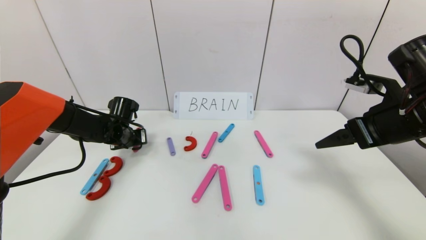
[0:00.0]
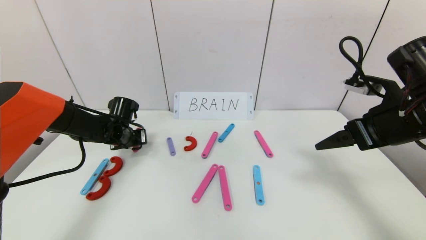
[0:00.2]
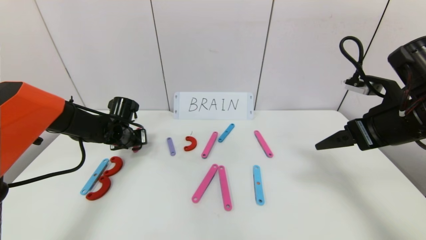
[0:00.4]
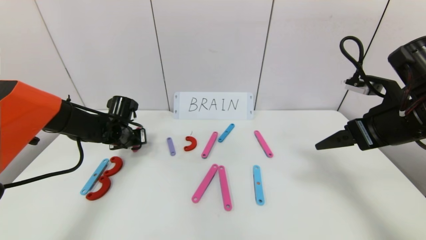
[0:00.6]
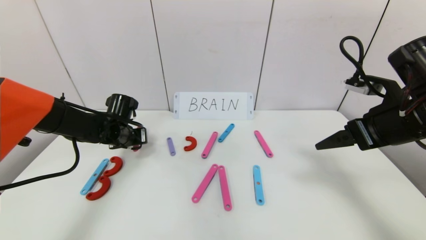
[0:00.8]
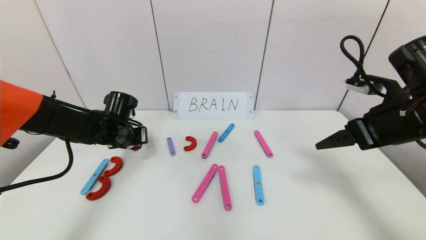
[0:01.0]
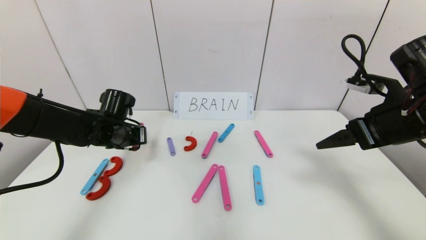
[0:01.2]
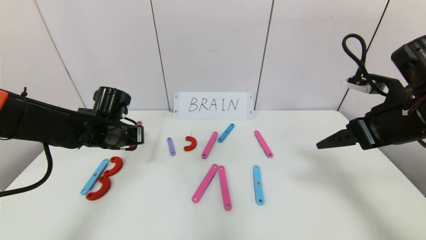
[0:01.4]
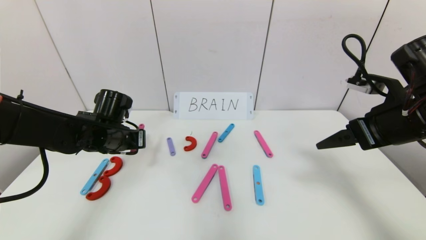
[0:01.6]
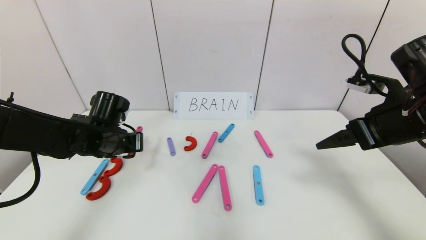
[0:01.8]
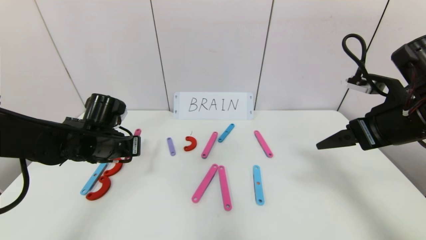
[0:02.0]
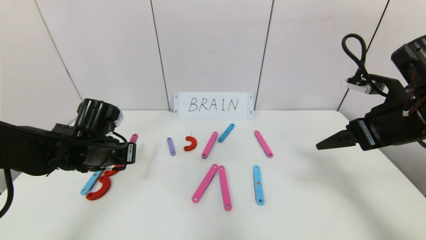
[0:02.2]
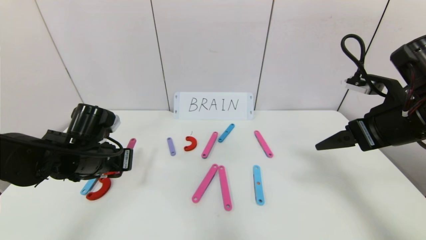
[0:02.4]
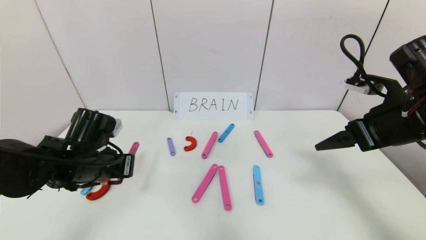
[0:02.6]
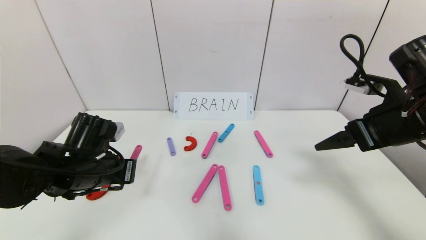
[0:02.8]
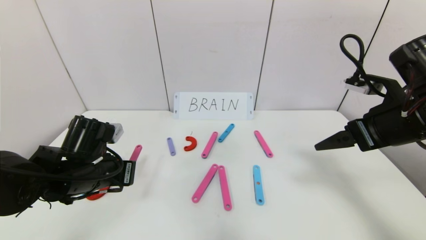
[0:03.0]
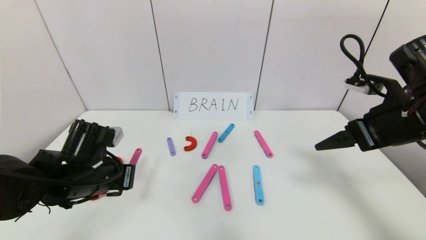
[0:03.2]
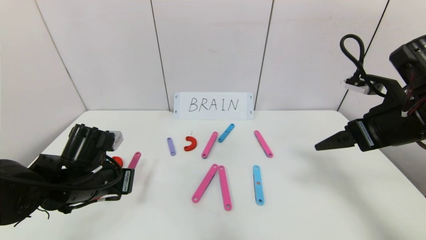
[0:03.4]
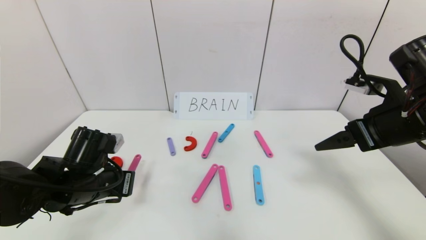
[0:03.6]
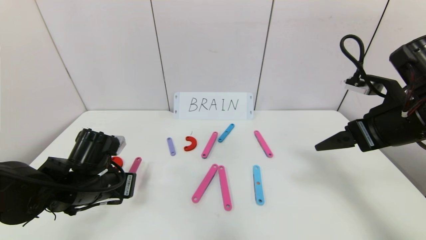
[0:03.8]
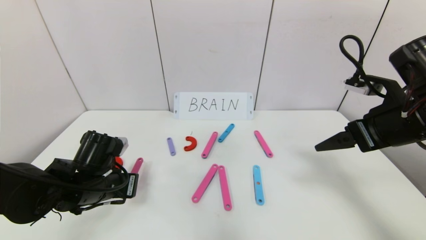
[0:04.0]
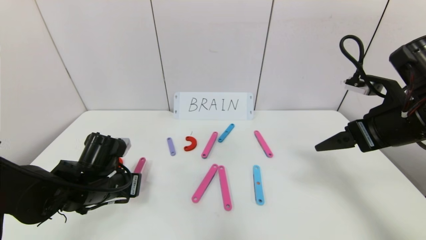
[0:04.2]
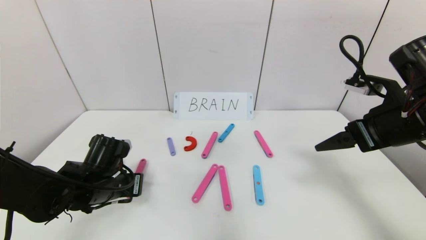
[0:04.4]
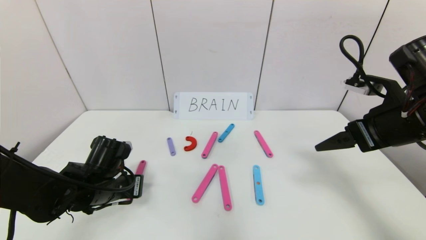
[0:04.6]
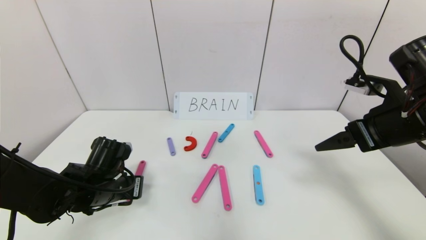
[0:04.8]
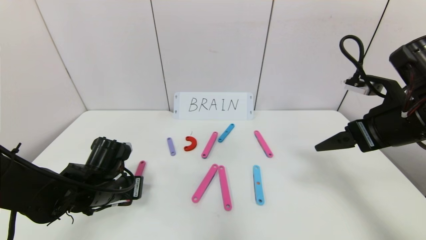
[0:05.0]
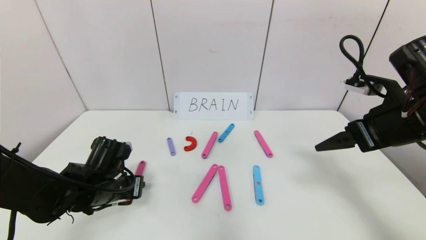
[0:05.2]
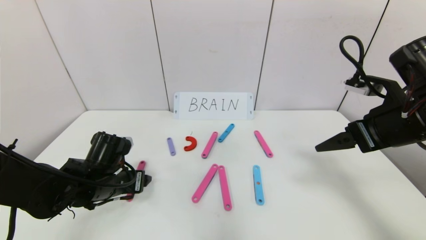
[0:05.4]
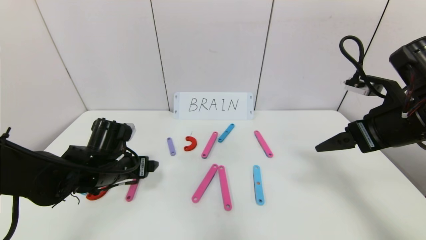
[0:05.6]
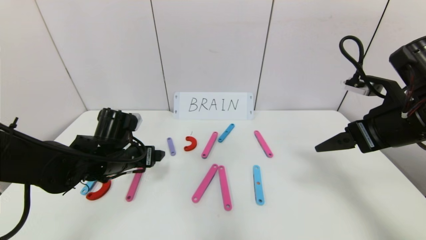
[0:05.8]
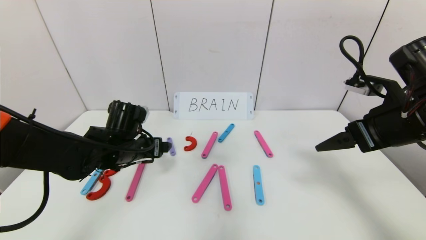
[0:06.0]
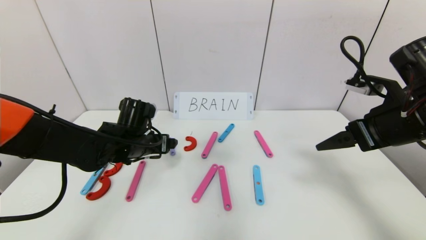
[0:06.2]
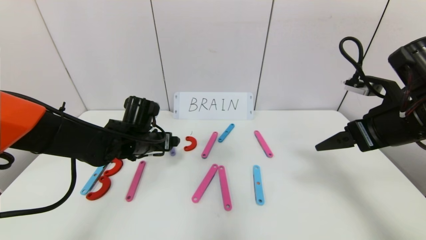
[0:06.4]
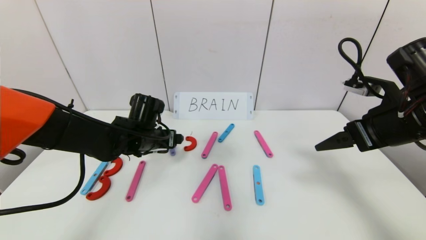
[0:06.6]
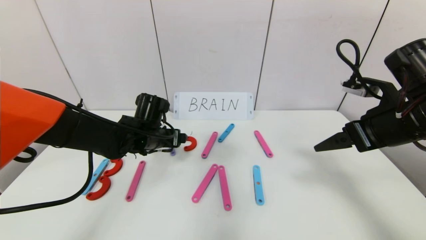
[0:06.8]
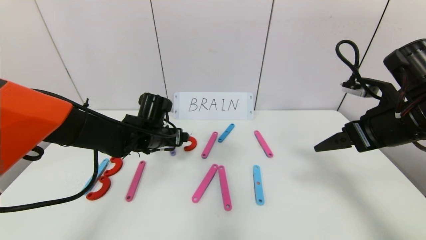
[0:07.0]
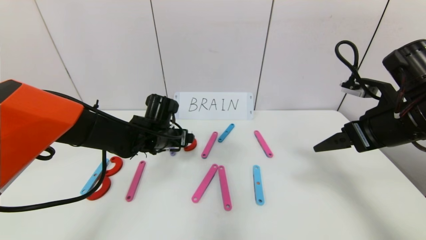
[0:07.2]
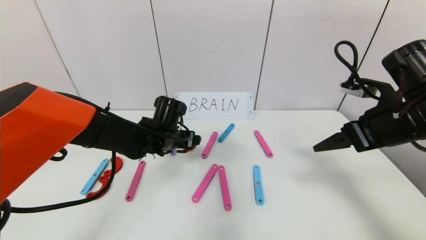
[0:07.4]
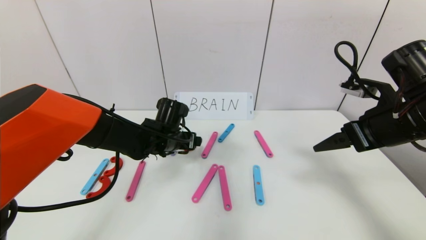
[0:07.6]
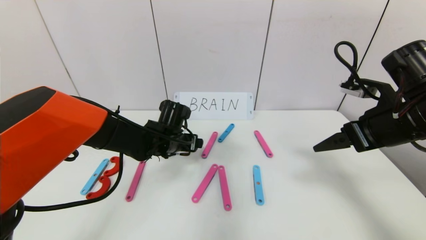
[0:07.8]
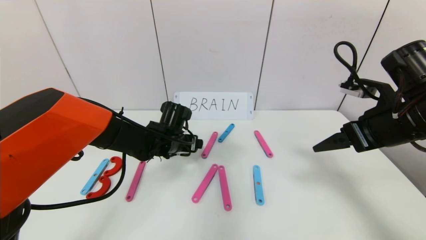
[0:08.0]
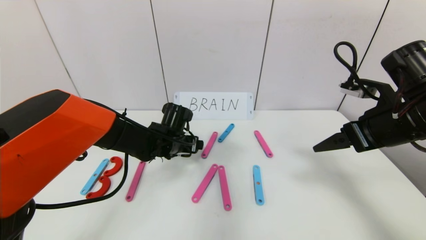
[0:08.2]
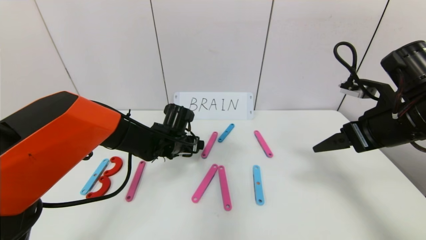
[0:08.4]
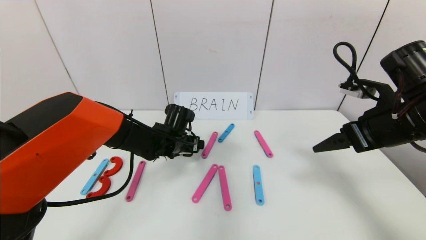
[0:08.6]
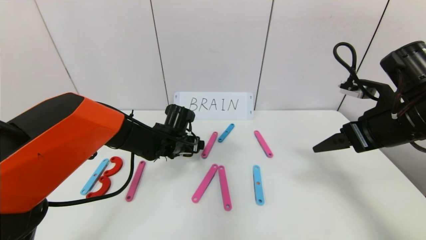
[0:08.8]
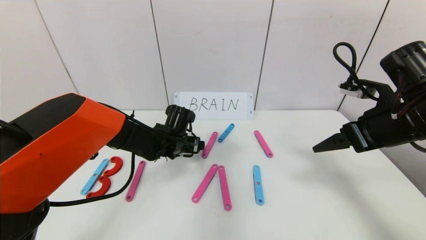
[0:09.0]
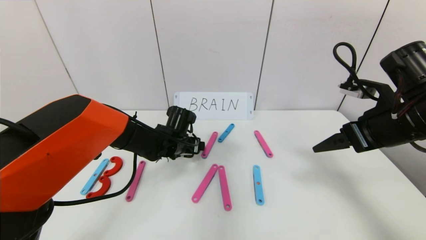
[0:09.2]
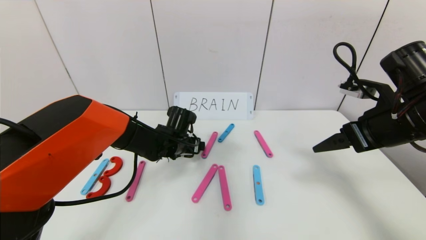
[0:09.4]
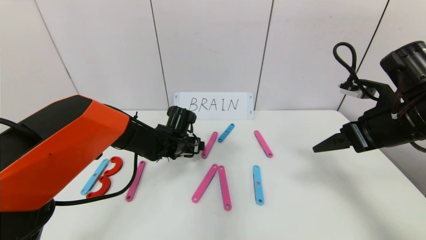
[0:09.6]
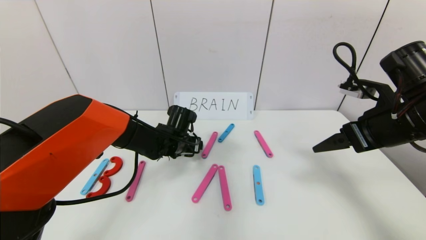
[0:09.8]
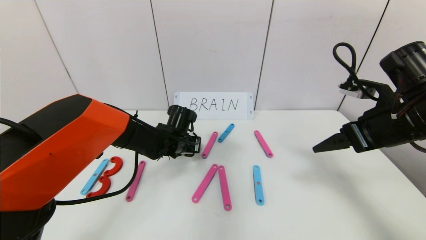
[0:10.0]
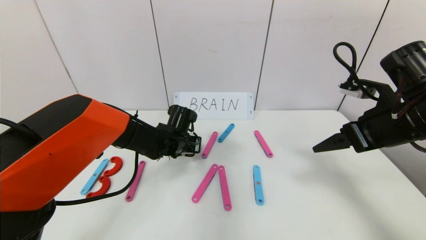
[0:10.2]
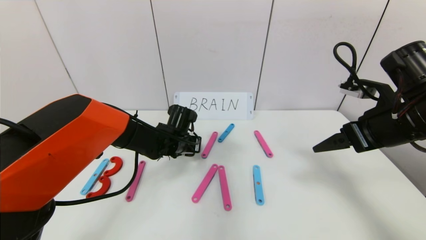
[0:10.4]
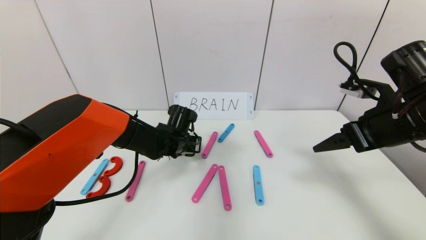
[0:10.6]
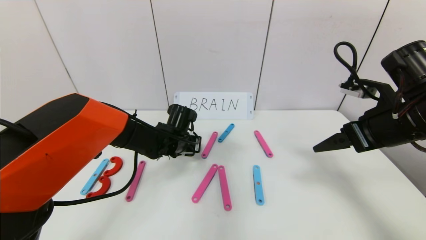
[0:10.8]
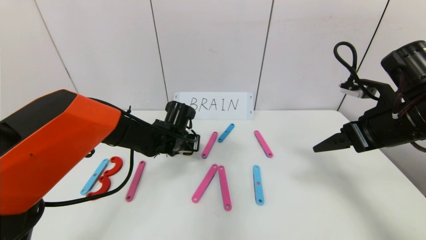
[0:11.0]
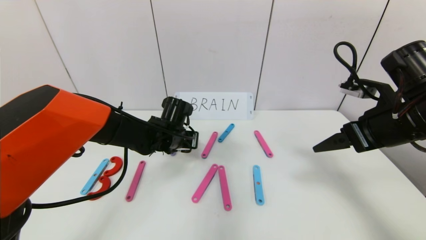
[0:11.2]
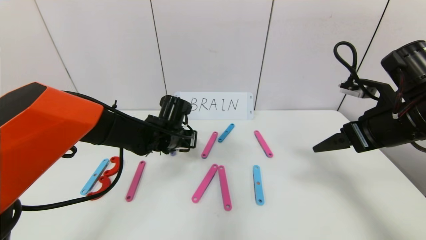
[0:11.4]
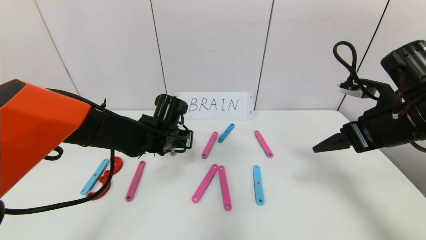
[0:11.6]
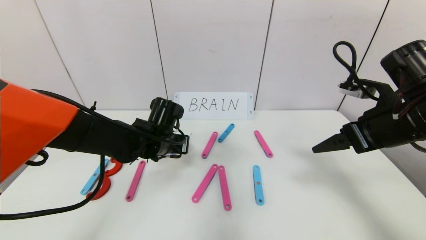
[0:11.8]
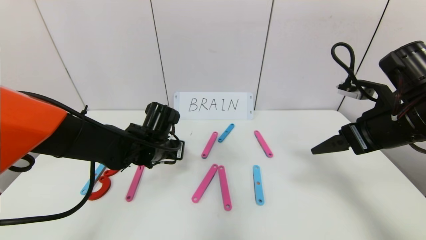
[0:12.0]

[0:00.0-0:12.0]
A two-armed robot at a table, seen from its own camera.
Task of the whole recording: rearrange the word baai as brain.
0.0 to 1.6 s: The left gripper travels backward and upward by some 10 cm.
1.6 to 3.0 s: The left gripper heads backward, covering approximately 10 cm.
3.0 to 4.4 s: The left gripper changes place by approximately 5 cm.
4.4 to 6.0 s: The left gripper heads forward, covering about 5 cm, and opens its fingers.
6.0 to 7.6 s: The left gripper travels to the right and forward by about 10 cm.
7.6 to 9.0 s: The grippers move only a little.
9.0 to 10.4 s: The left gripper closes.
10.4 to 12.0 s: The left gripper is displaced backward by some 5 cm.

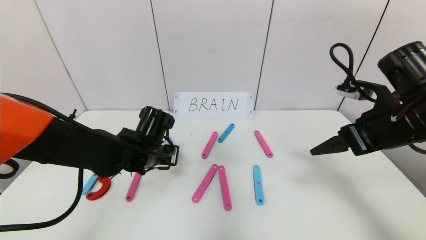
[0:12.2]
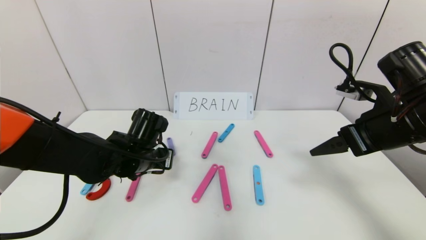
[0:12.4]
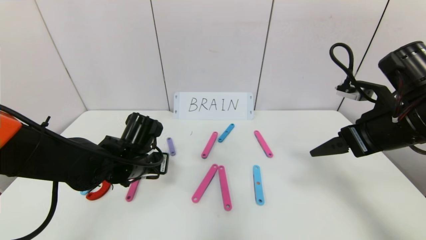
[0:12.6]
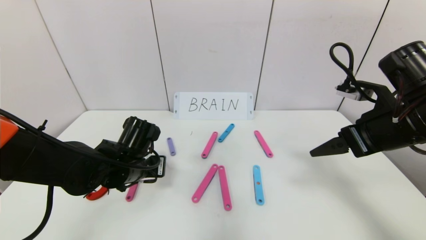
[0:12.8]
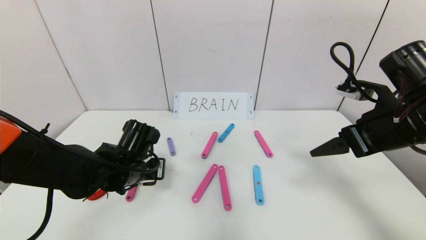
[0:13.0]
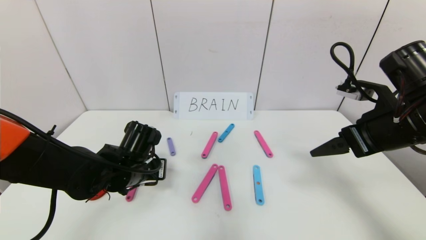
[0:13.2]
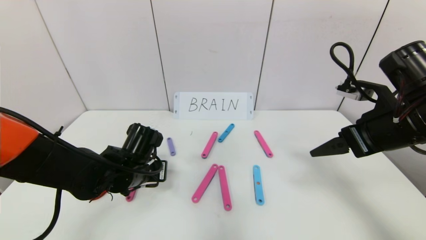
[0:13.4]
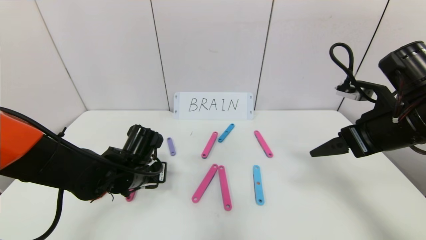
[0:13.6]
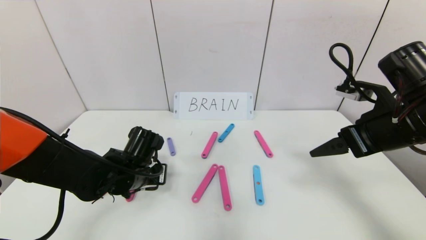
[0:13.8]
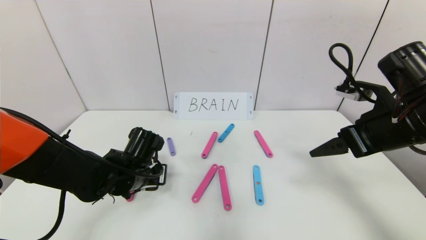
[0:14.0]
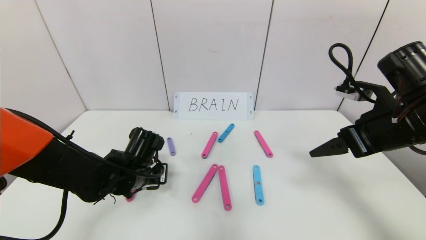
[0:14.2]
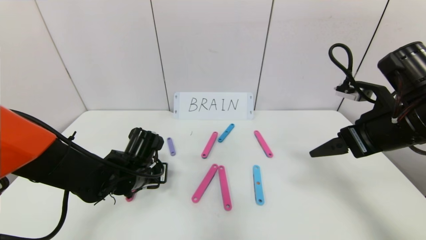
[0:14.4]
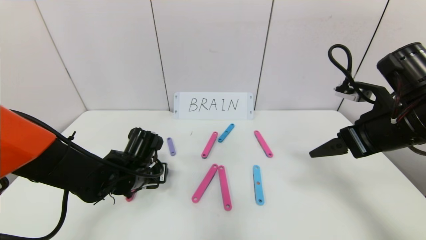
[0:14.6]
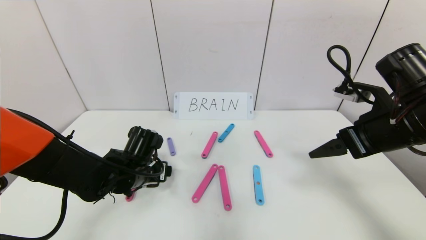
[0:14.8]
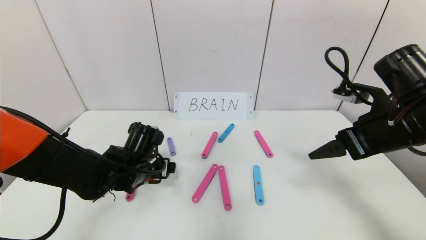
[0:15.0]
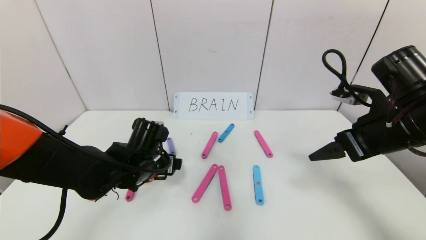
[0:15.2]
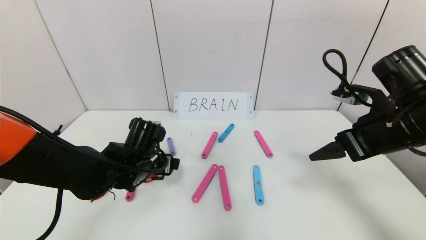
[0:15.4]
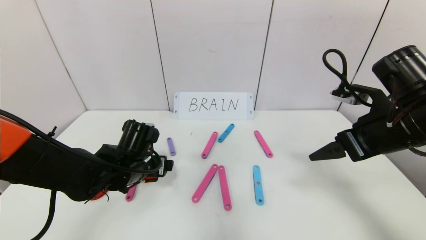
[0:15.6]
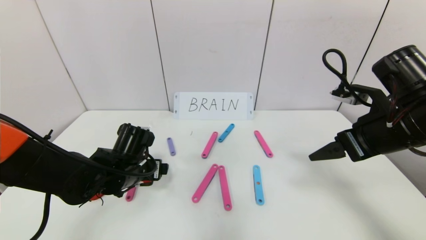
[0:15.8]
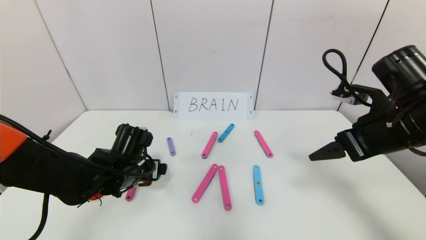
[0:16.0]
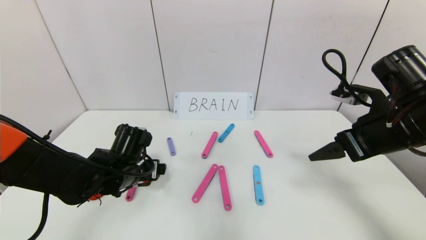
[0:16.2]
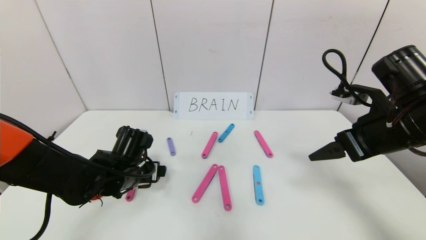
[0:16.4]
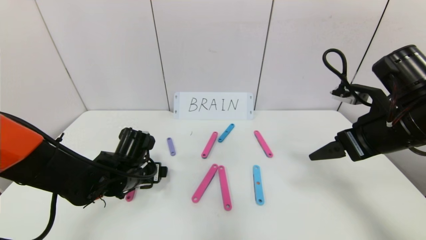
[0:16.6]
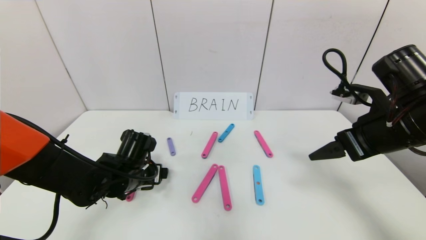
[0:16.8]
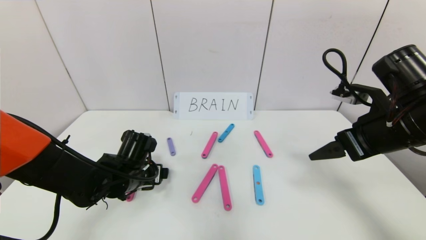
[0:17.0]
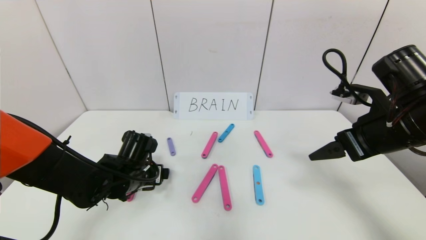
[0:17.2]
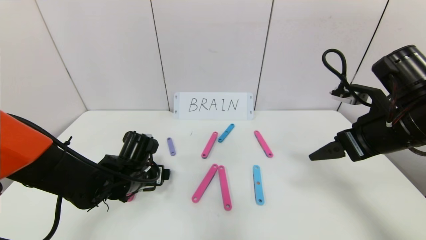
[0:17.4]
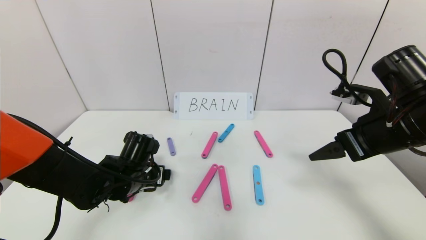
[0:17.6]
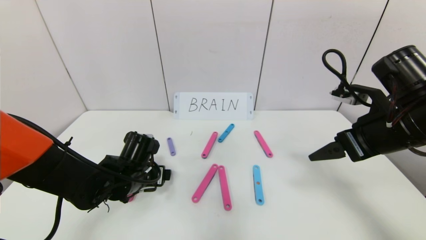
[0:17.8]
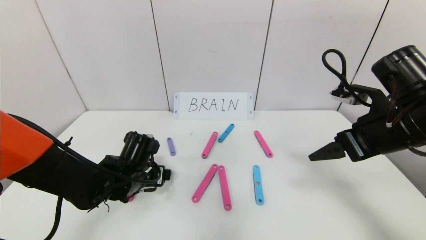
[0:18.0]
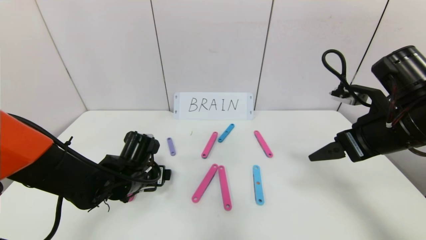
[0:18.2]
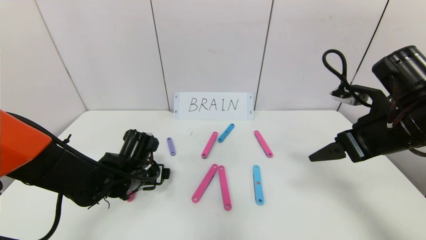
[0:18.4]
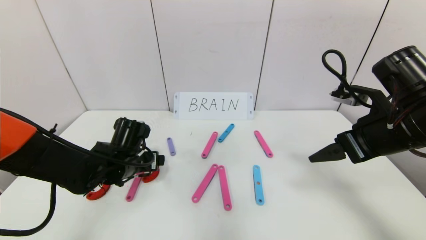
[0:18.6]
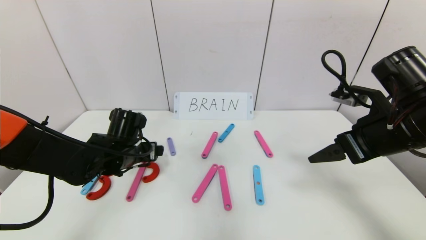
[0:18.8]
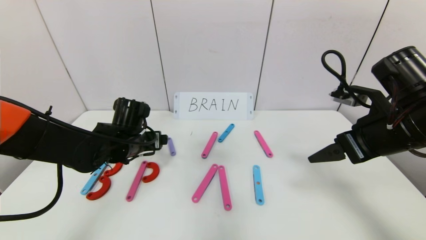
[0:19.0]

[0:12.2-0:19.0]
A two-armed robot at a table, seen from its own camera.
Task of the whole recording: rearrange the word baai as brain.
12.2 to 13.6 s: There are only small adjustments of the grippers.
13.6 to 15.0 s: The left gripper opens its fingers.
15.0 to 17.6 s: The grippers stay close to where they were, moving slightly.
17.6 to 19.0 s: The left gripper shifts some 5 cm upward.
